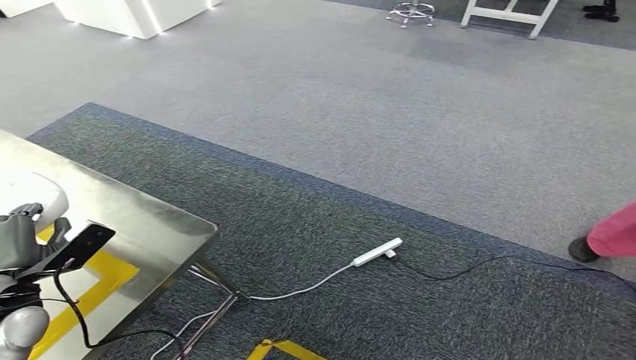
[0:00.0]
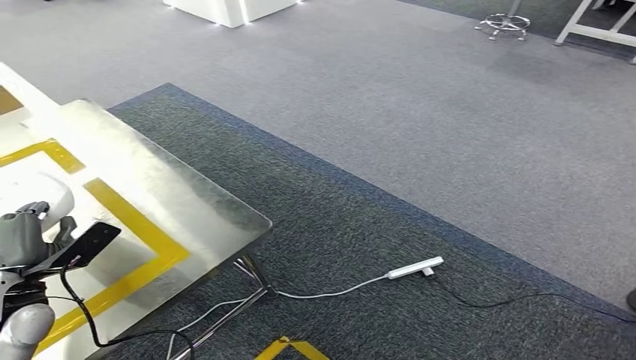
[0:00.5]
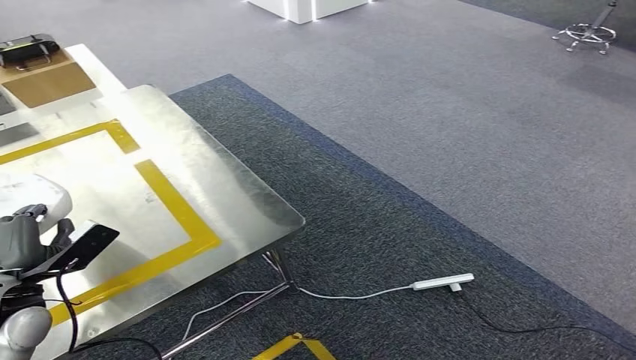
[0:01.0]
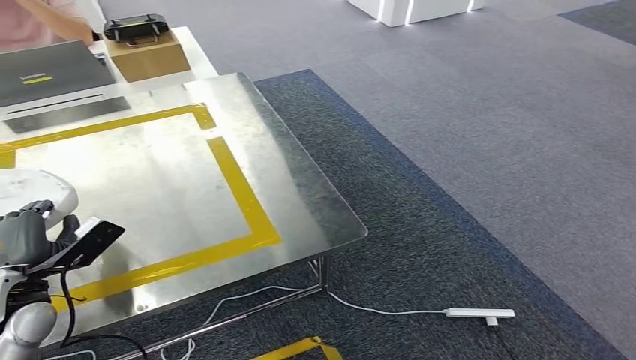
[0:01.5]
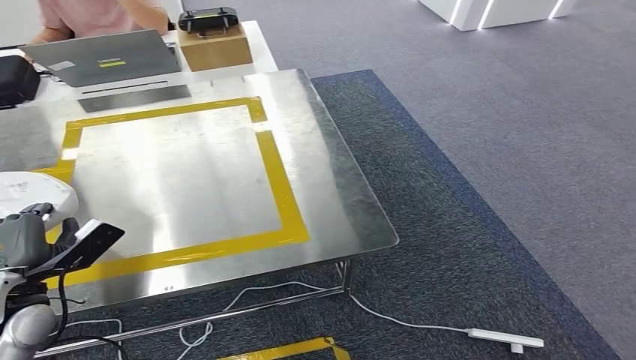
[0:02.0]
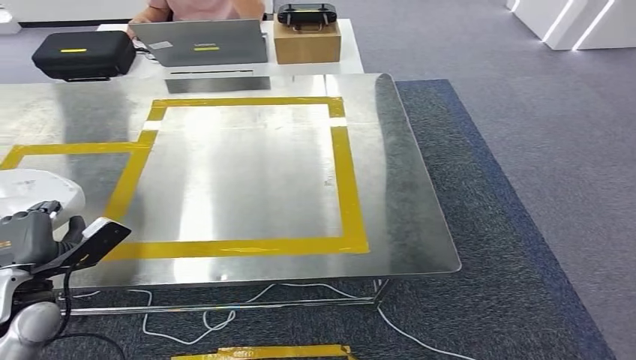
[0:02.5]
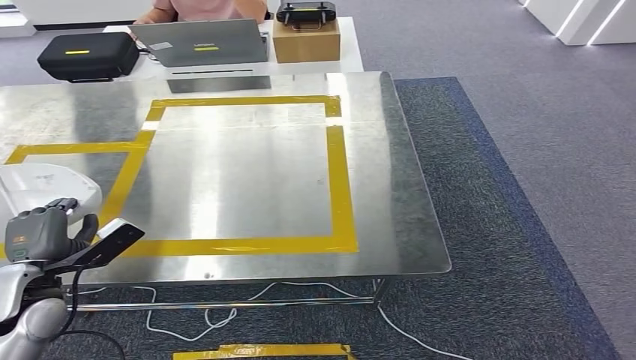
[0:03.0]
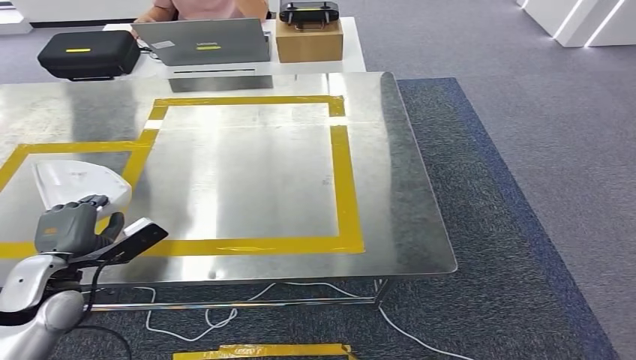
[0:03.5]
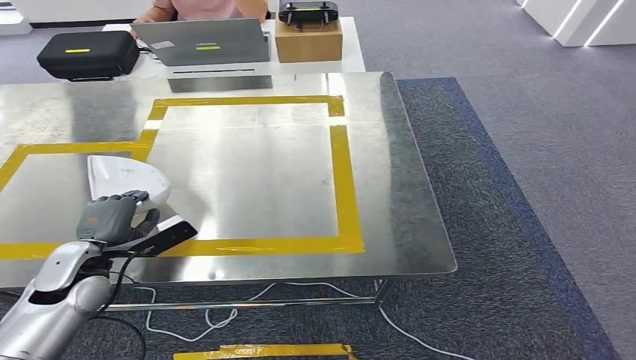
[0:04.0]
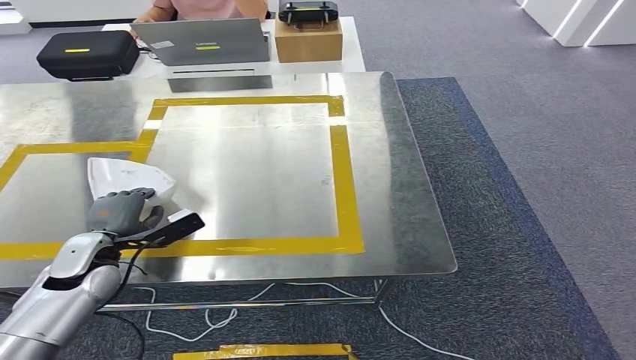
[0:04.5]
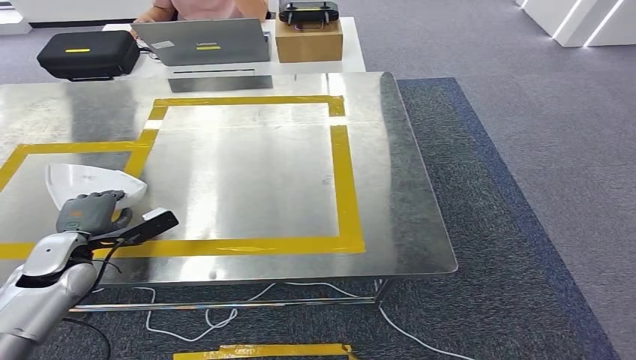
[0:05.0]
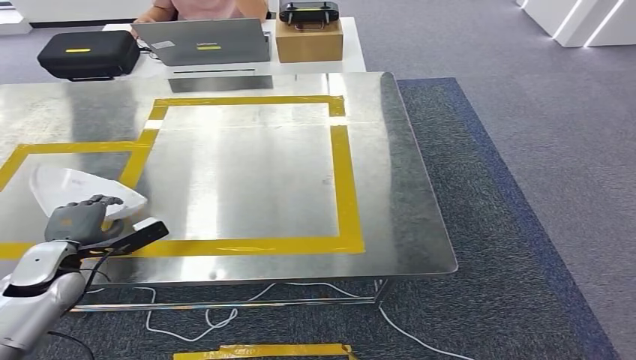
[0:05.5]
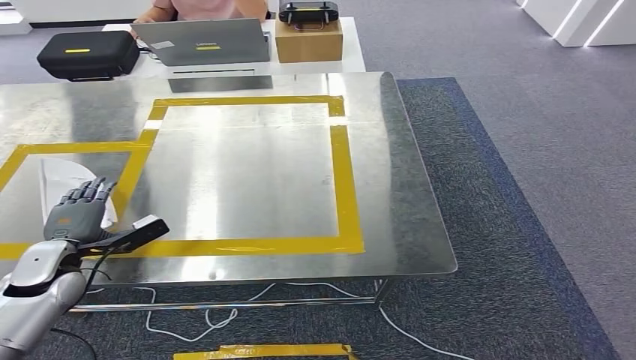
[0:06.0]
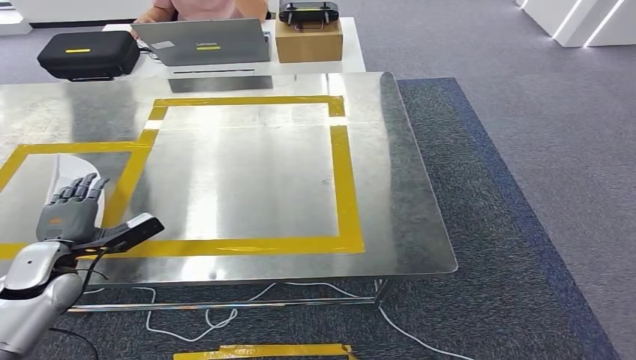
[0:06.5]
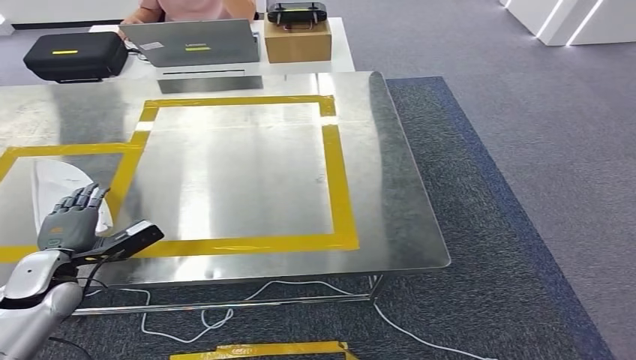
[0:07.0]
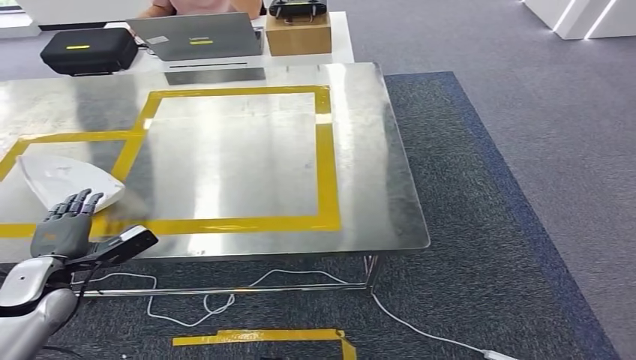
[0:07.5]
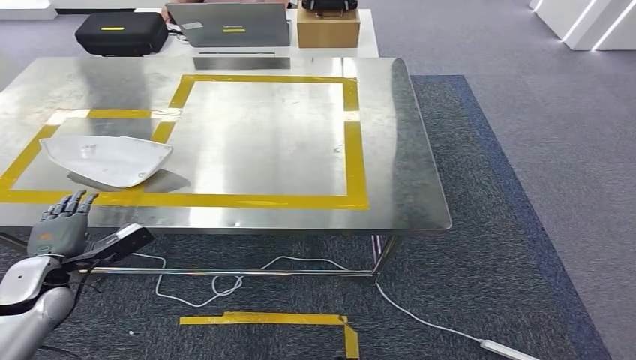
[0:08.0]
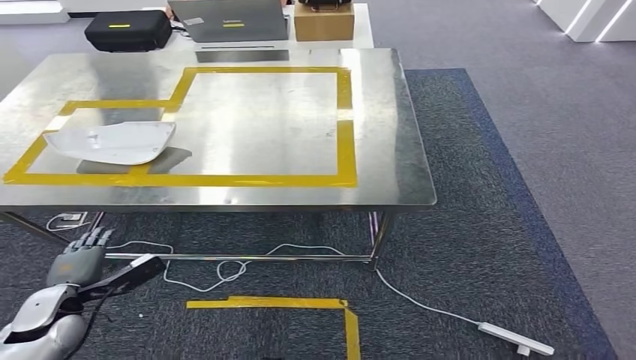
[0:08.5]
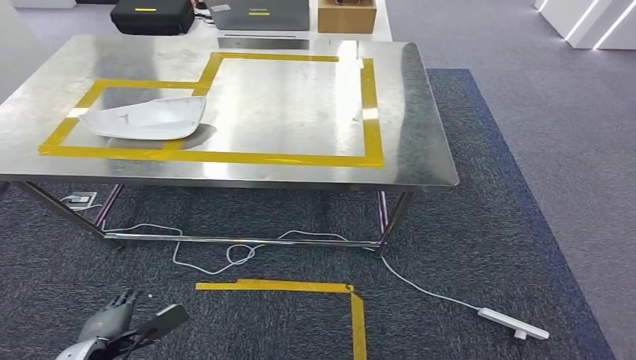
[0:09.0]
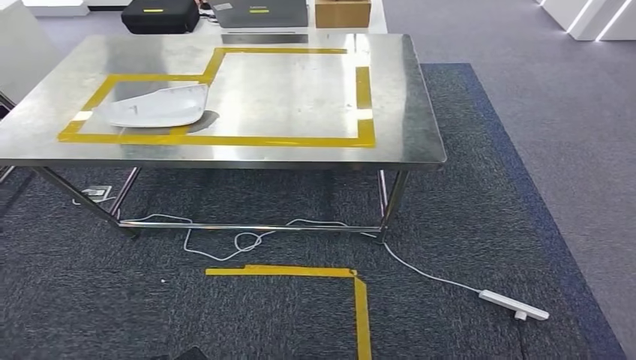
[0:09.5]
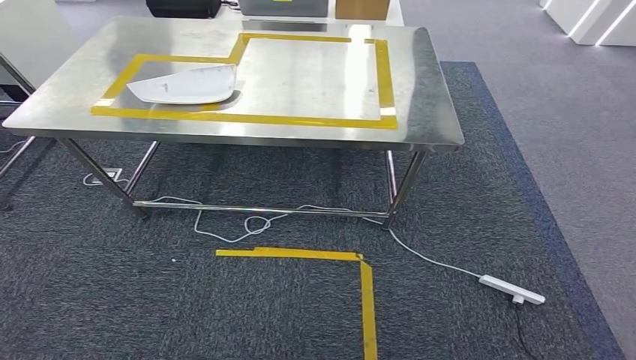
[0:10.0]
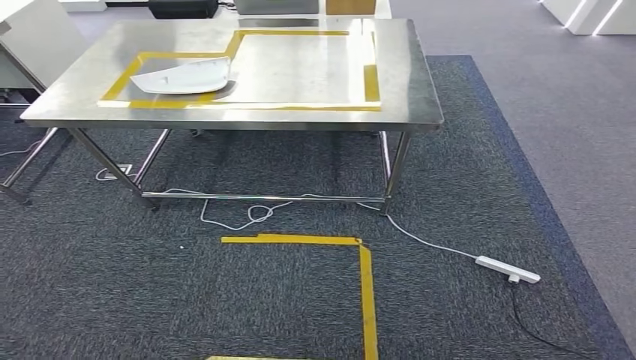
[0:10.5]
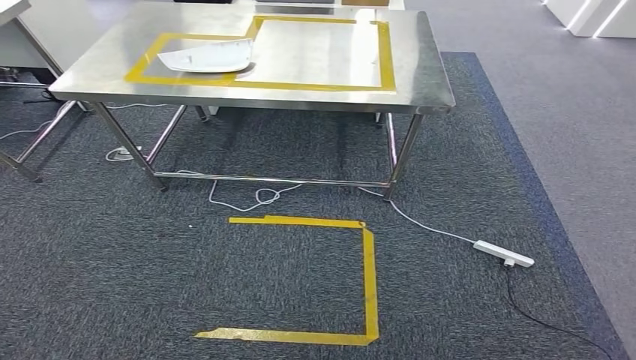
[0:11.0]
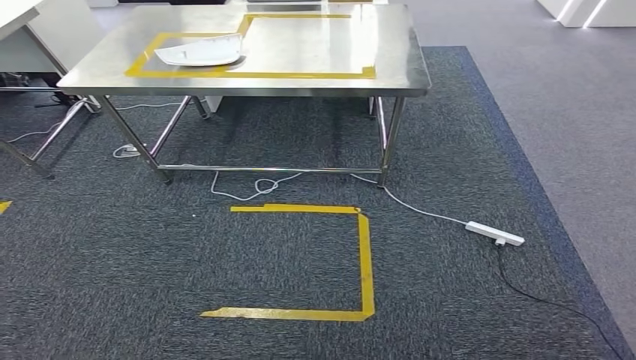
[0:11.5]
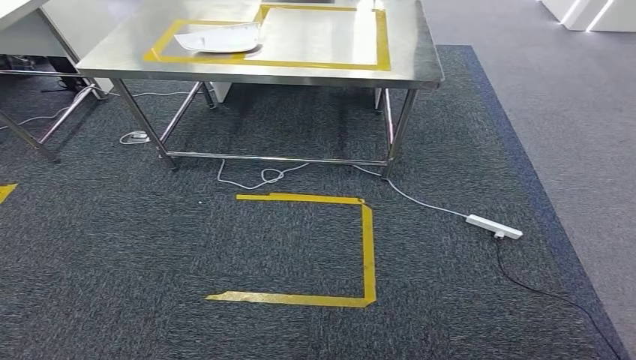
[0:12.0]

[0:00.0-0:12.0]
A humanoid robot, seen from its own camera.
0:04.0 to 0:06.0: The left hand goes approximately 5 cm to the left.

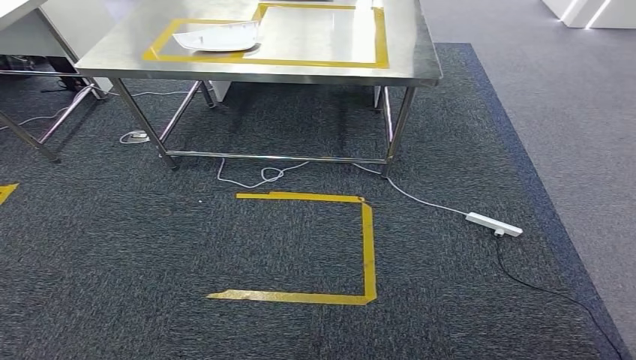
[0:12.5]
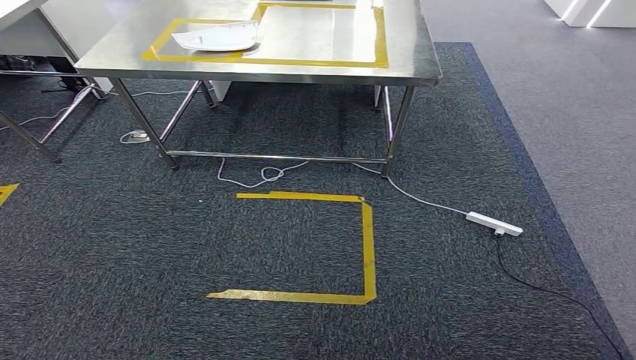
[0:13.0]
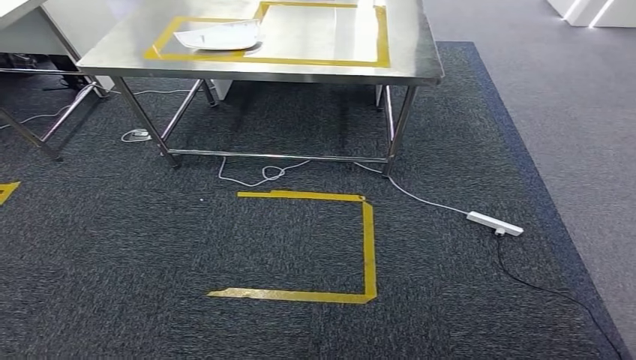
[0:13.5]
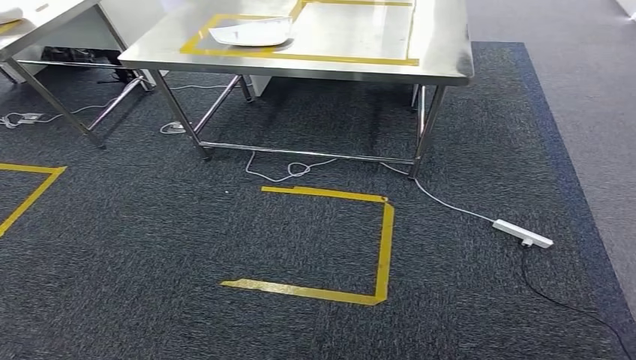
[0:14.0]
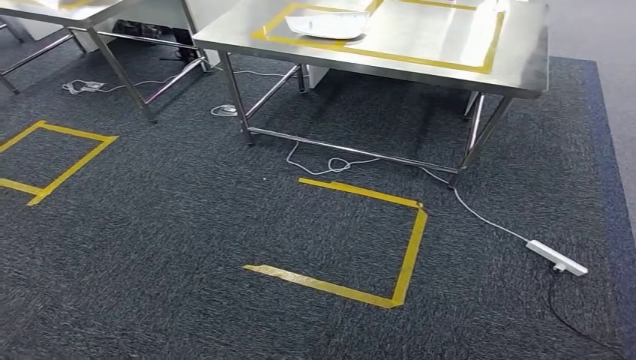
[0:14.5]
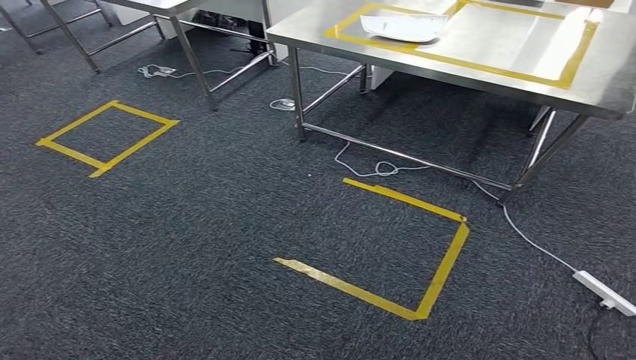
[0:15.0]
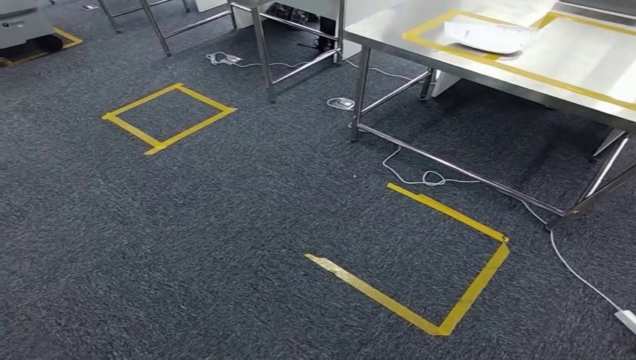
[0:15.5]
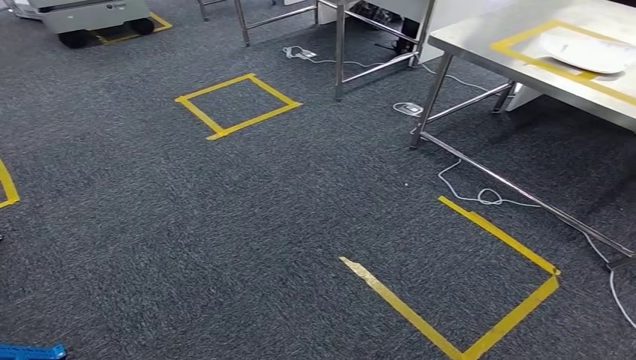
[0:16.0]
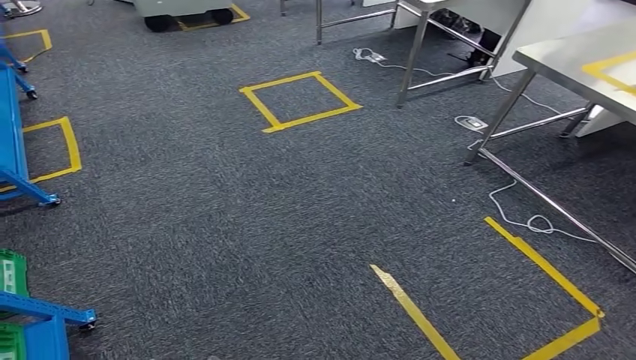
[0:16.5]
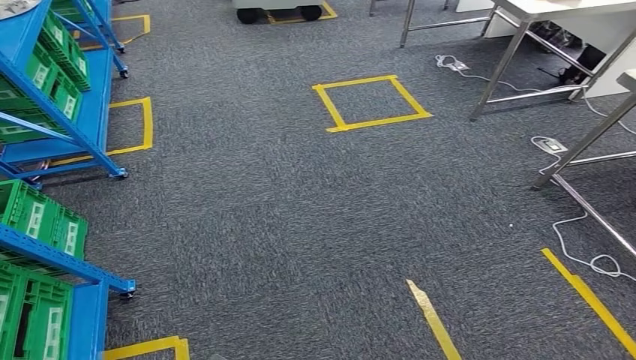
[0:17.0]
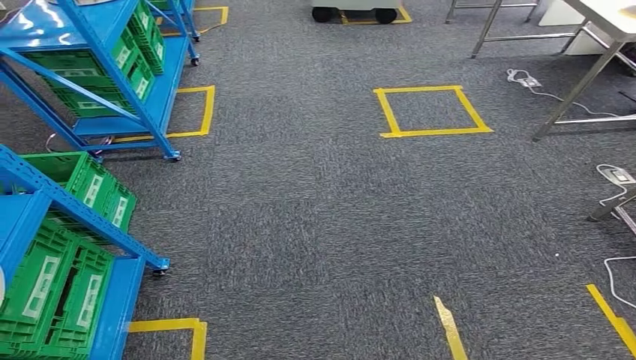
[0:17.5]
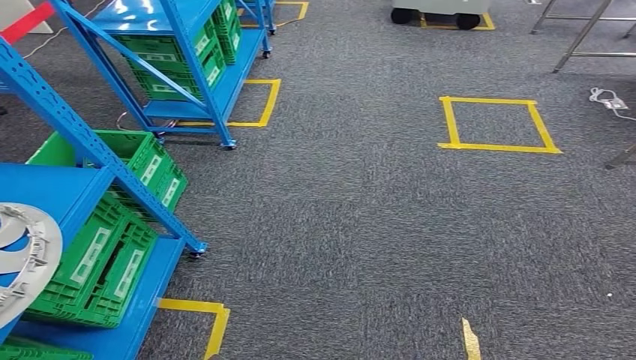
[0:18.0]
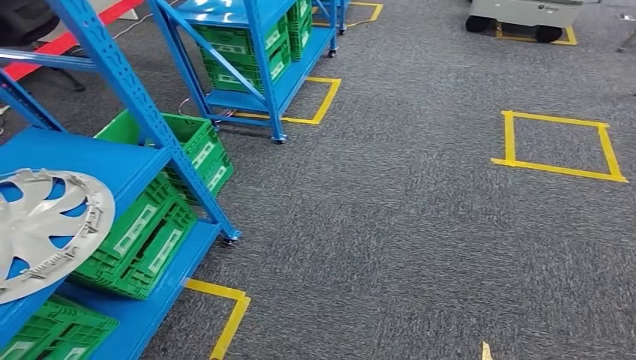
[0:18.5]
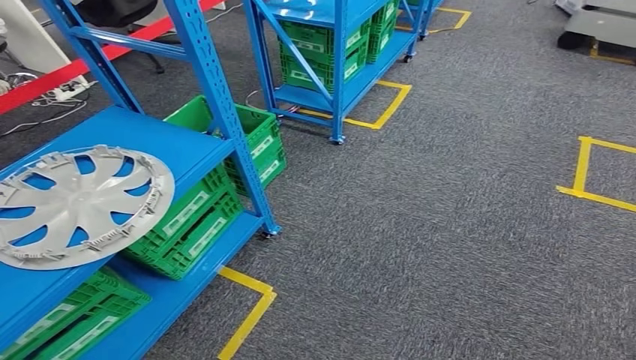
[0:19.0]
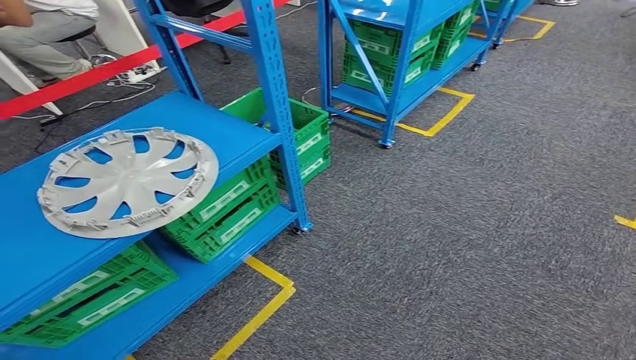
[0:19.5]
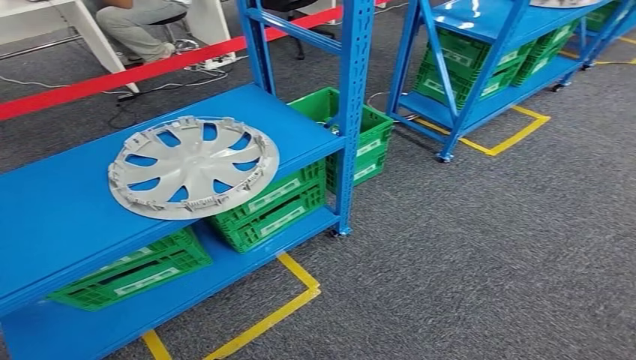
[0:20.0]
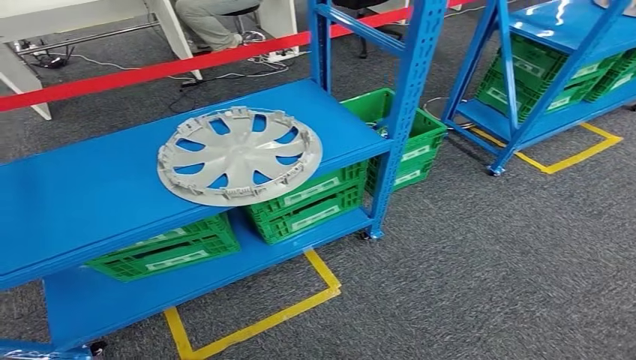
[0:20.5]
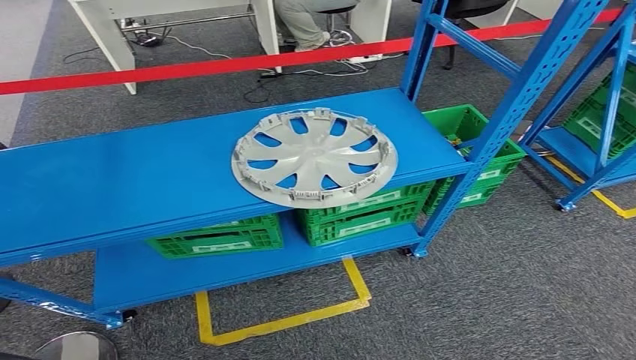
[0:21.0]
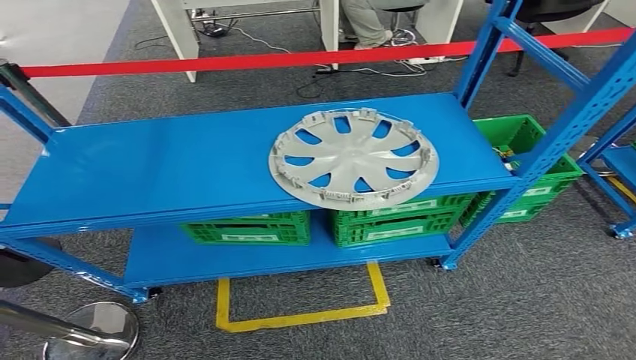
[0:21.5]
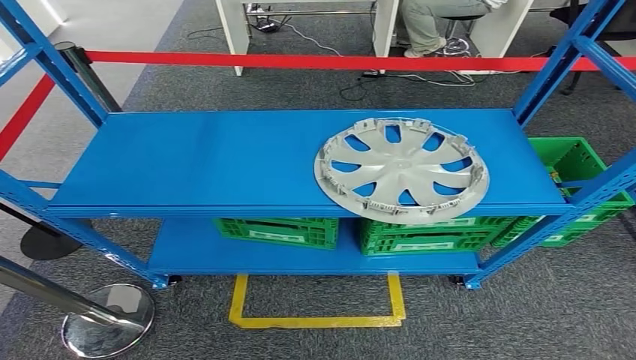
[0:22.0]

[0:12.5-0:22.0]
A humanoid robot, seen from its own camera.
Step, 0:12.5 to 0:14.5: Insert the small parts into the corresponding holes on the workbench.
Step, 0:15.0 to 0:22.0: Move to the initial position of the workbench.
